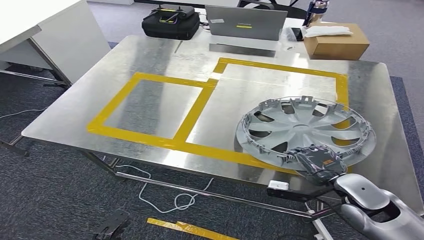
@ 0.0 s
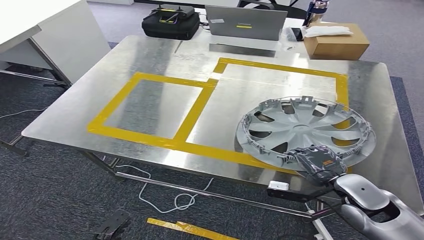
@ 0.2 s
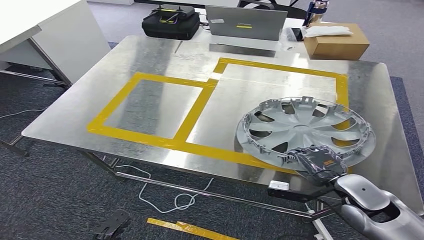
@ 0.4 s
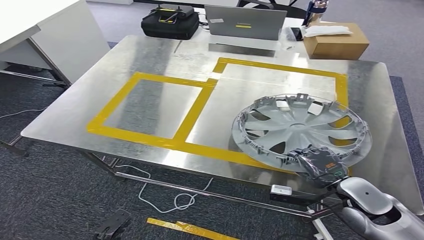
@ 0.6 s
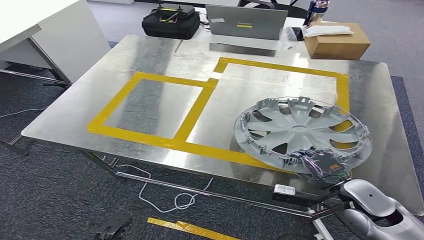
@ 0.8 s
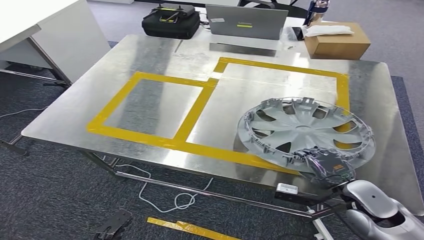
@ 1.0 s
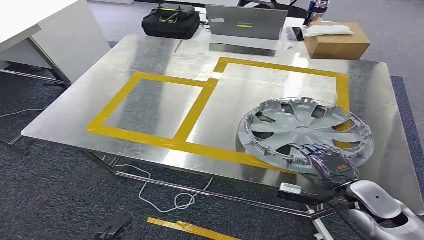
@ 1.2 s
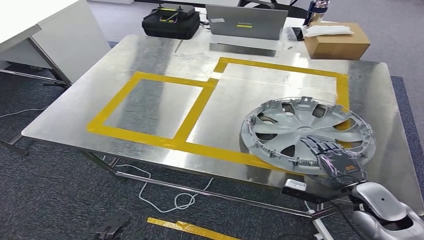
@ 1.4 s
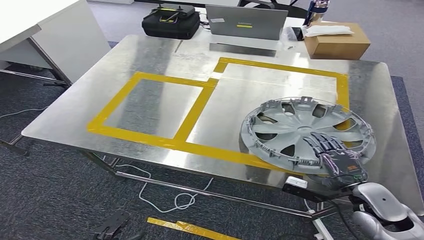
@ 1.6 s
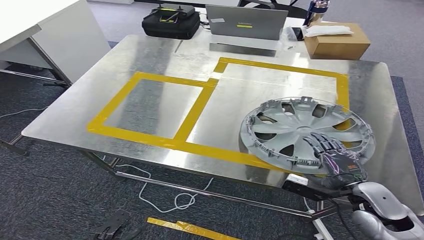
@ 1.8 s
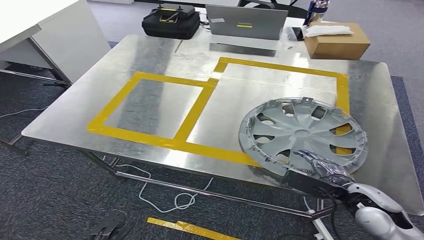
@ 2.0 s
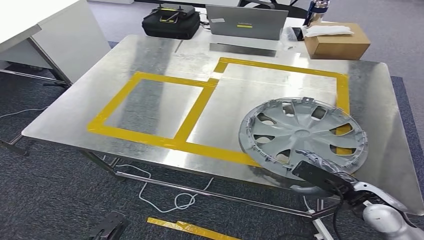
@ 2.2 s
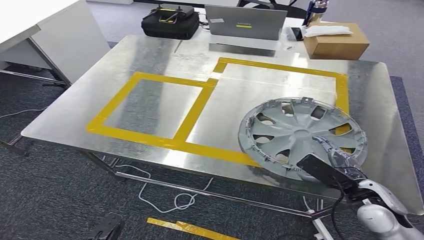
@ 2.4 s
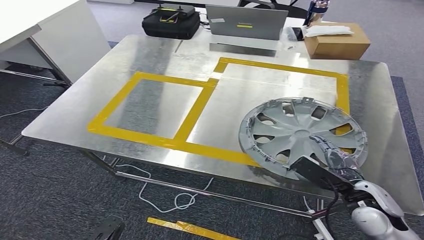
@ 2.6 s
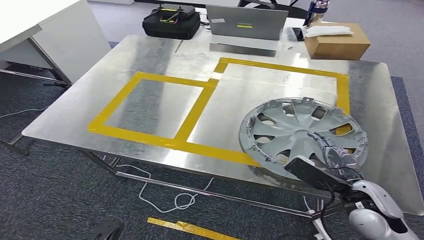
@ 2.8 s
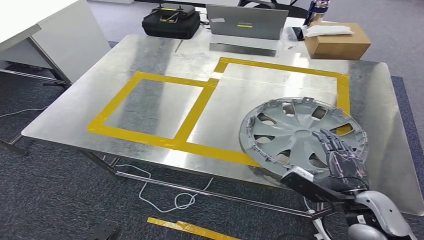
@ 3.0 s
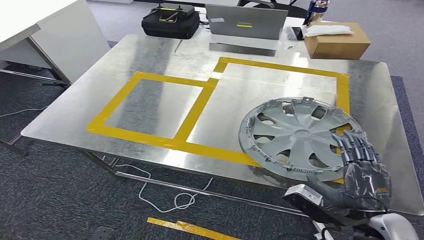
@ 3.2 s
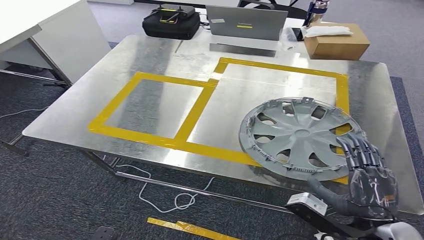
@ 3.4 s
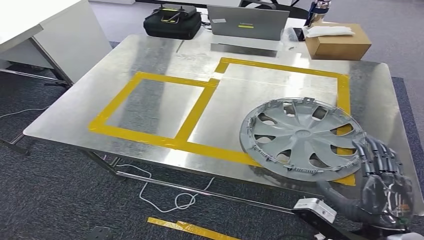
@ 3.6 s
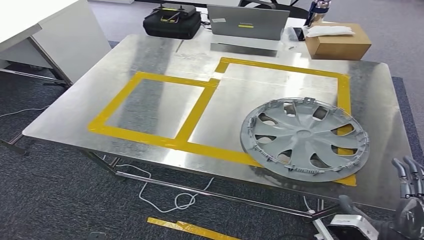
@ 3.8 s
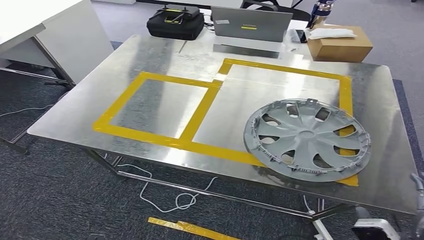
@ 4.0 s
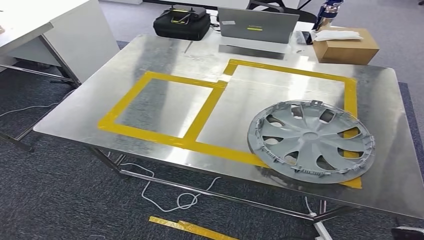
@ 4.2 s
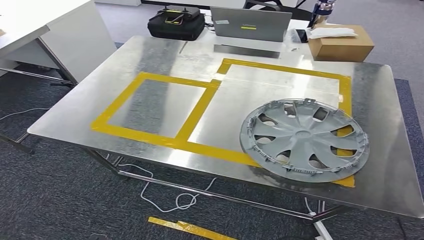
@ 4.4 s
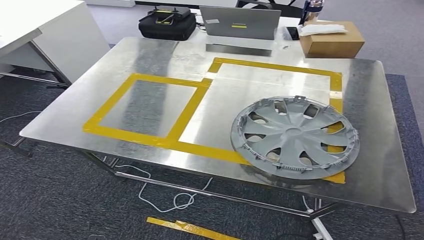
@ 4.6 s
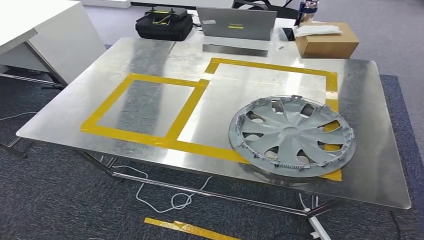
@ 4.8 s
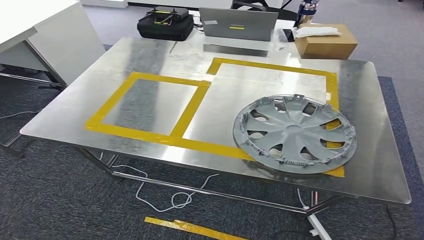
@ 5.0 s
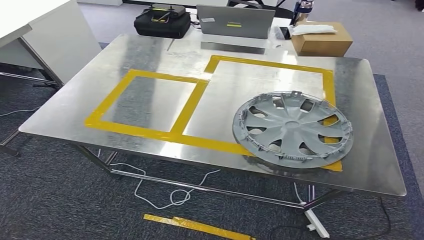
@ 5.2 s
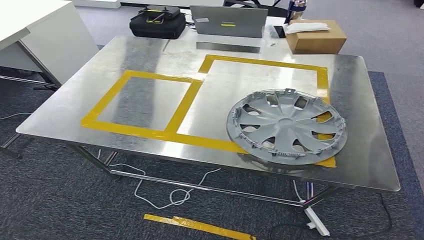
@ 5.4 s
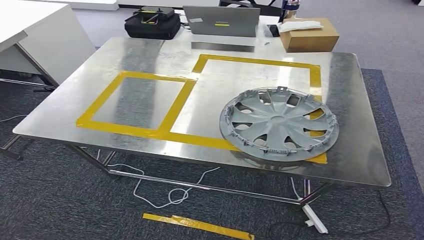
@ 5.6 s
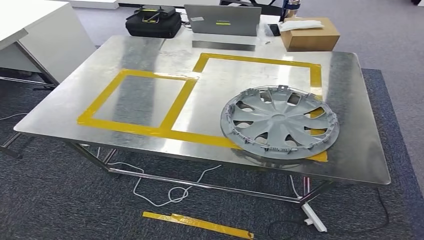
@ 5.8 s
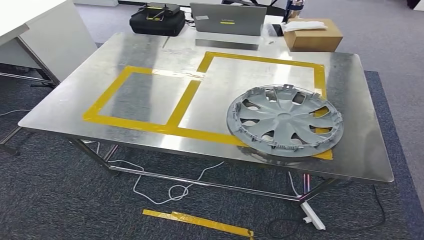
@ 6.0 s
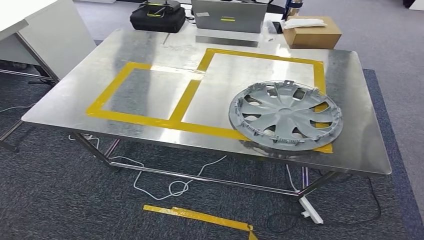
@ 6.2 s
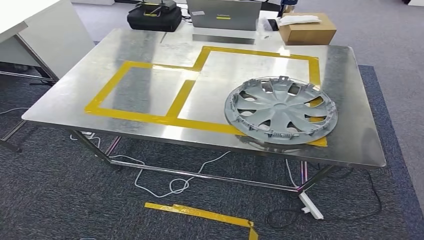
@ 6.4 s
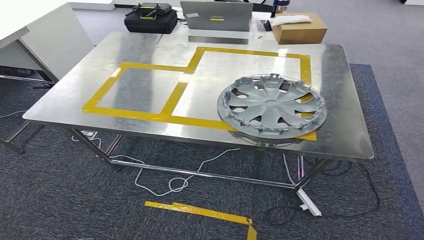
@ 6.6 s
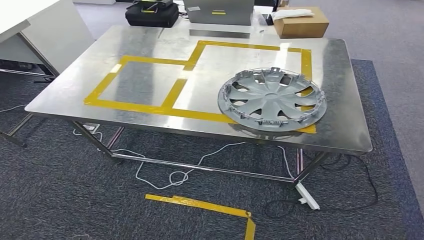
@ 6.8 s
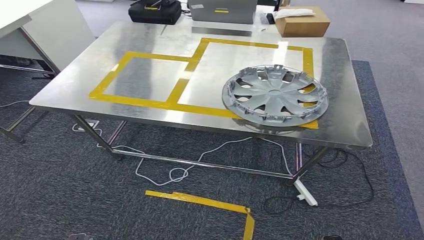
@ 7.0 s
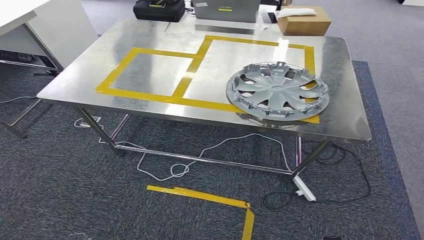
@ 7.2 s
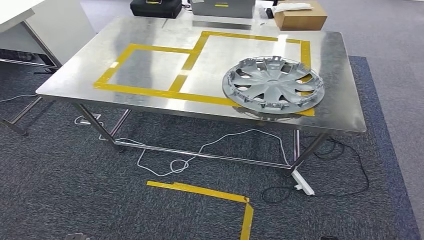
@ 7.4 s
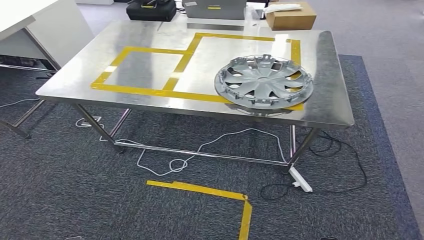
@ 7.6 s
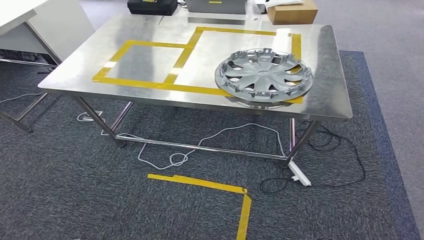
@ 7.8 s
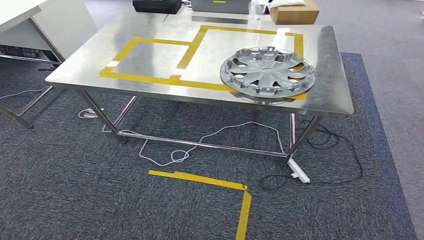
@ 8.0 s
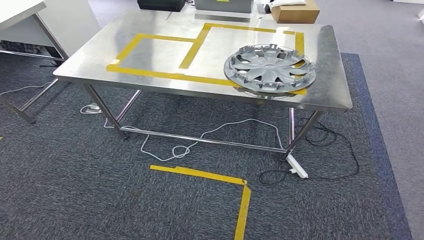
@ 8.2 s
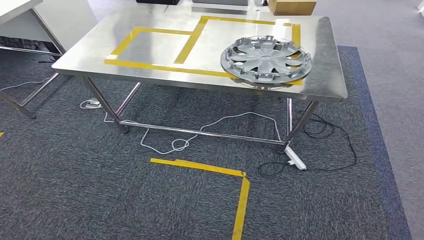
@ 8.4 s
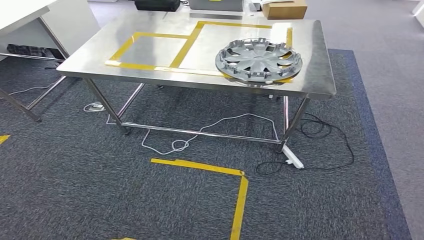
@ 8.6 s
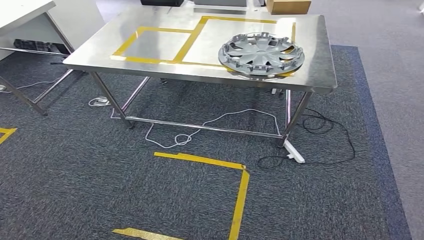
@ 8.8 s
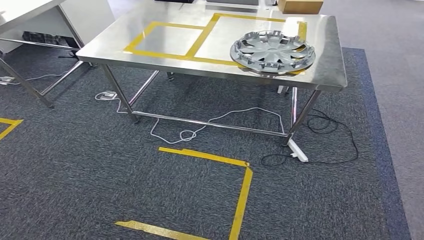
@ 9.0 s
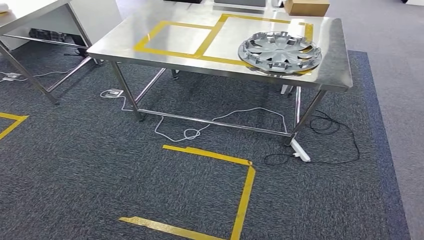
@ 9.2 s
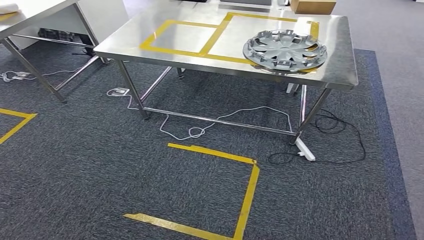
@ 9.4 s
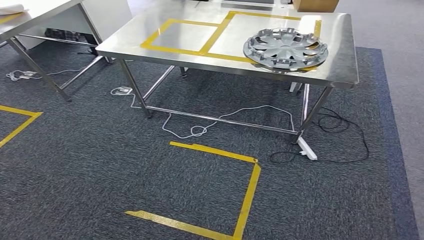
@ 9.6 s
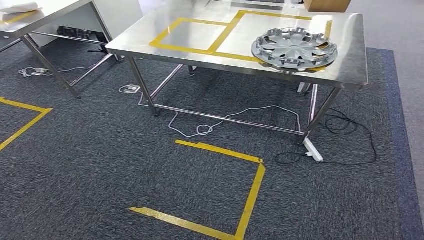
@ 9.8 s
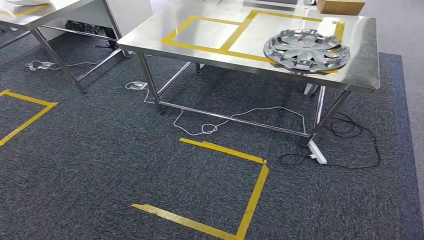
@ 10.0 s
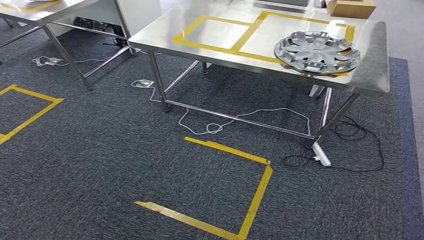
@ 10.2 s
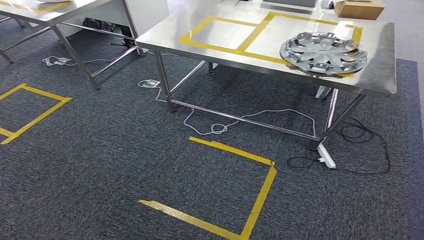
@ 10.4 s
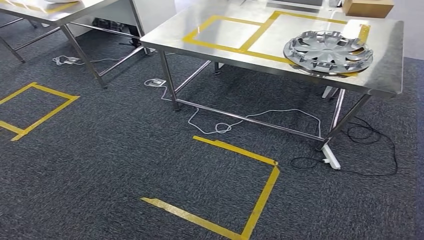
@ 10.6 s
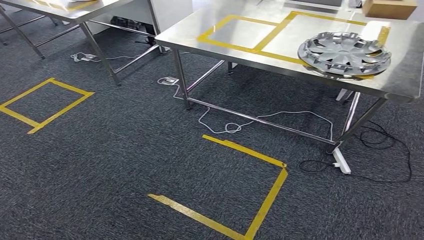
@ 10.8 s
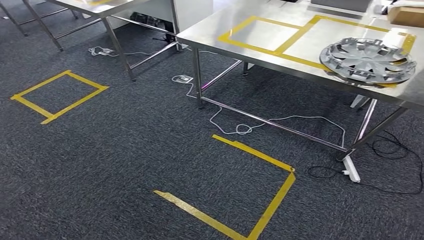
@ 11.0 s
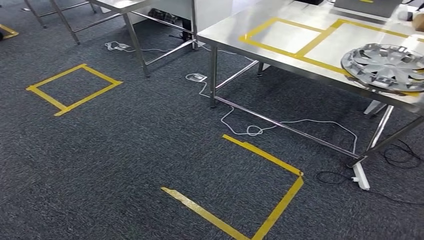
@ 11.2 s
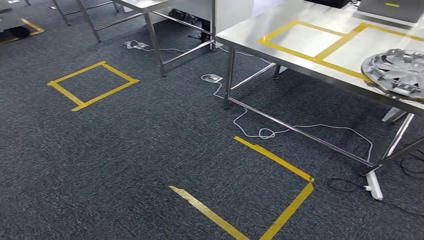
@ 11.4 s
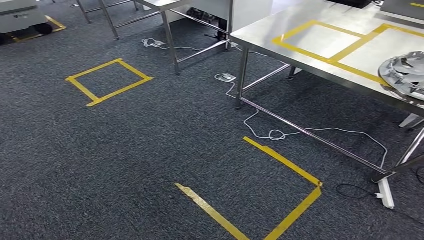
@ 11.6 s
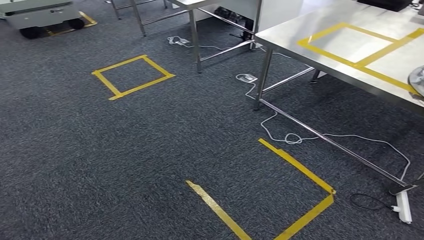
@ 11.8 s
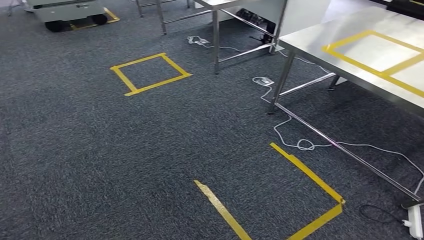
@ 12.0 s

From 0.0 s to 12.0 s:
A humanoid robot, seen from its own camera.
Step, from 0.4 s to 11.0 s: Insert the small component into the corresponding slot on the workbench.
From 0.0 s to 1.6 s: The hands move only a little.
From 1.6 s to 3.0 s: The right hand moves approximately 5 cm.
From 3.0 s to 4.4 s: The right hand travels backward by some 20 cm.

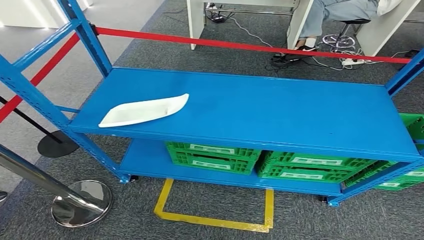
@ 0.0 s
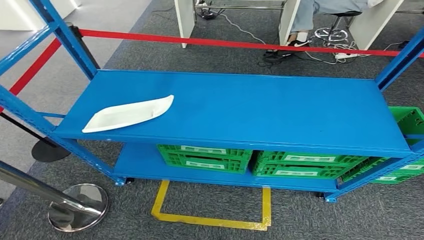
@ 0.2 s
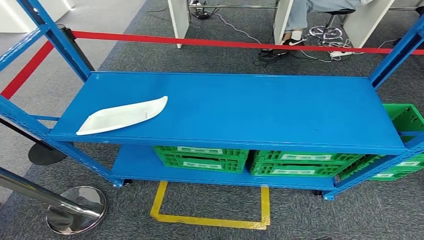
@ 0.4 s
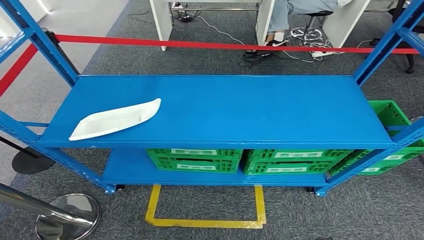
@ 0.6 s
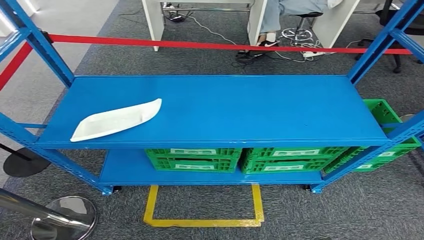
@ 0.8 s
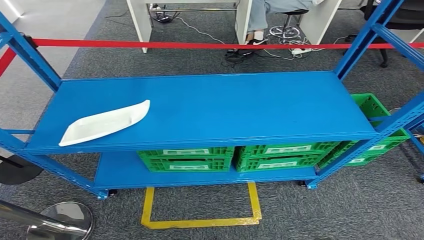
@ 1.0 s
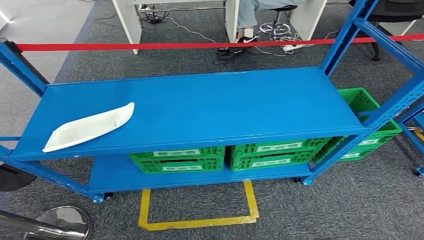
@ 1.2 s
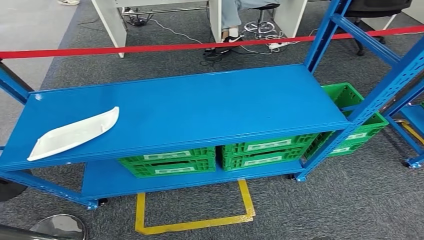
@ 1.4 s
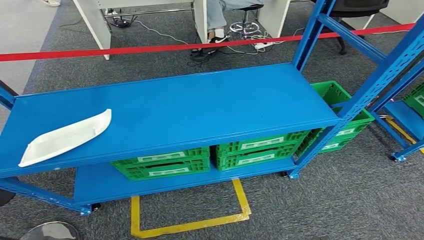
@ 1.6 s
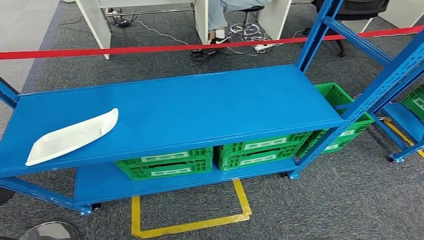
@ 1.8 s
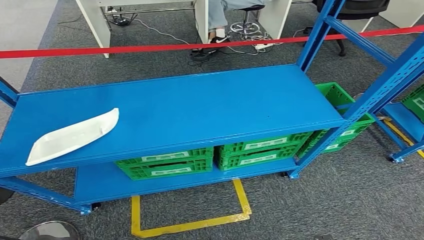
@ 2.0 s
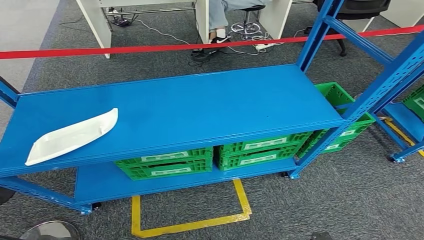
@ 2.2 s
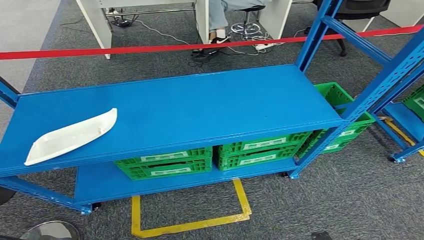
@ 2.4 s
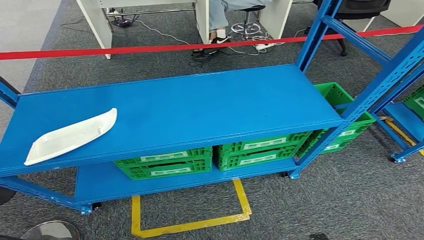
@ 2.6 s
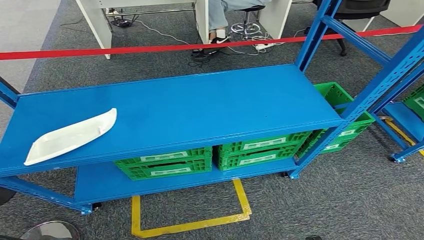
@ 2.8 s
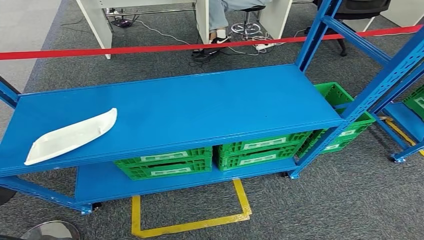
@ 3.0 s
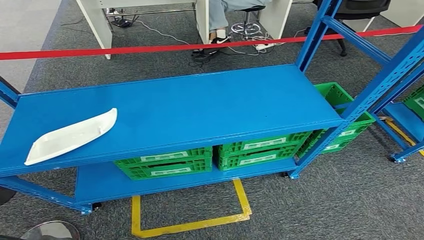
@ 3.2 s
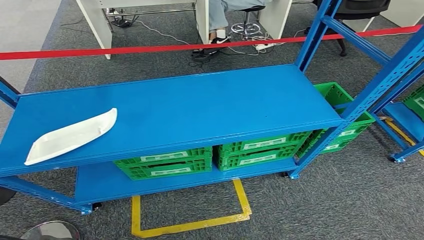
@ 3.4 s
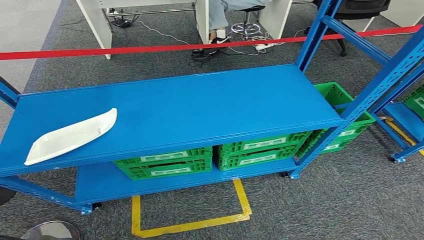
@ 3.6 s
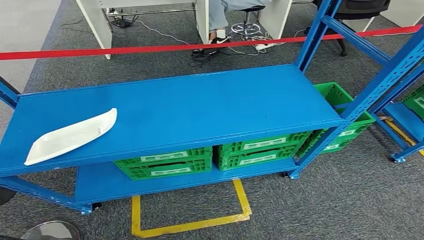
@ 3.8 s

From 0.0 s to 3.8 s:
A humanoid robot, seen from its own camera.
Step, from 0.0 s to 3.6 s: Return to the initial position at the workbench.
